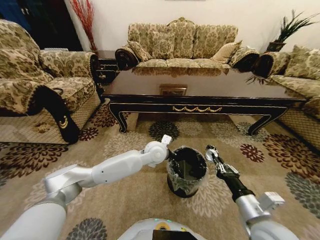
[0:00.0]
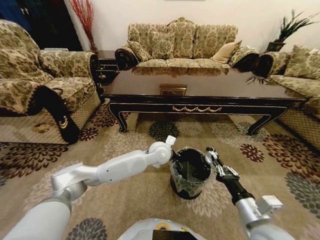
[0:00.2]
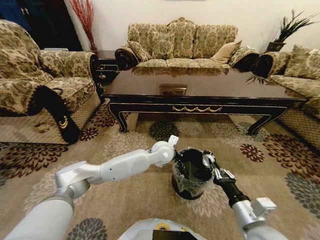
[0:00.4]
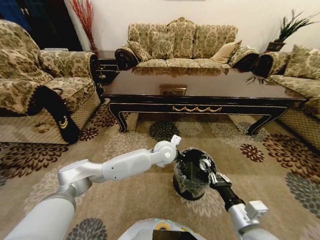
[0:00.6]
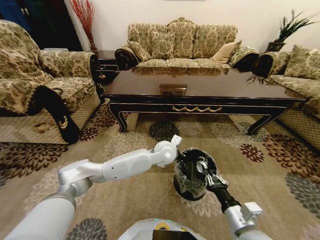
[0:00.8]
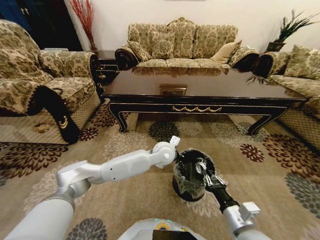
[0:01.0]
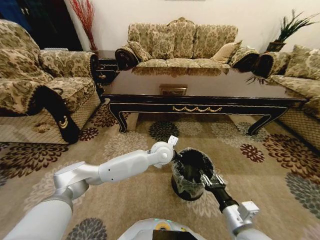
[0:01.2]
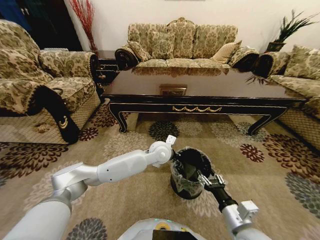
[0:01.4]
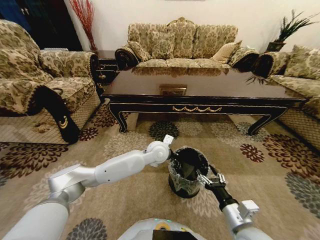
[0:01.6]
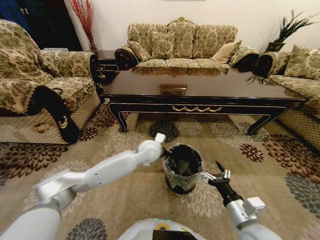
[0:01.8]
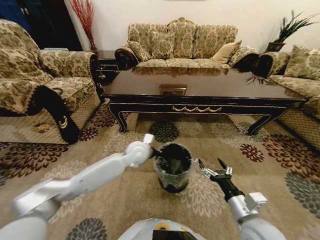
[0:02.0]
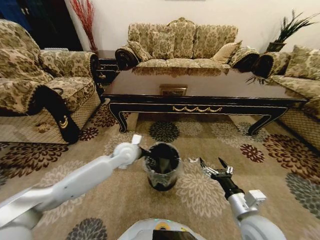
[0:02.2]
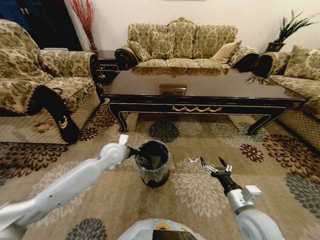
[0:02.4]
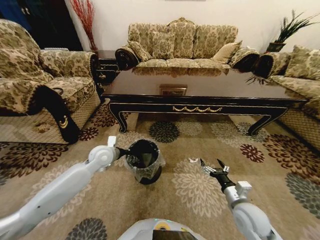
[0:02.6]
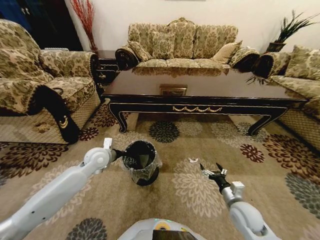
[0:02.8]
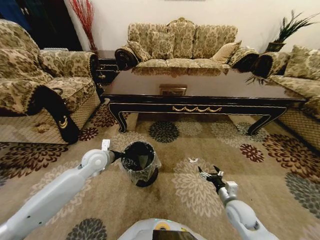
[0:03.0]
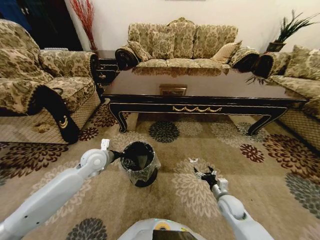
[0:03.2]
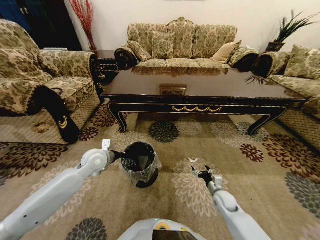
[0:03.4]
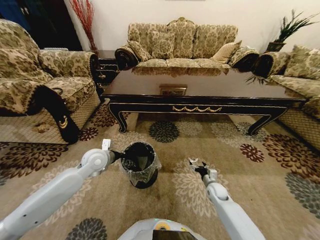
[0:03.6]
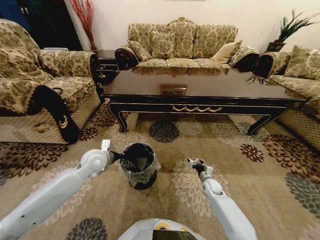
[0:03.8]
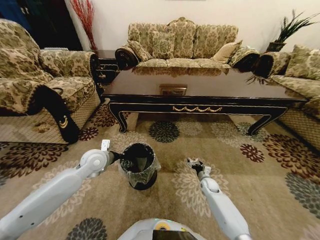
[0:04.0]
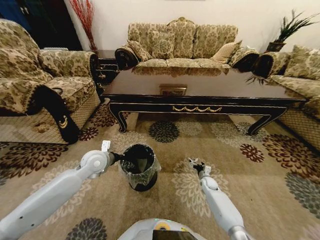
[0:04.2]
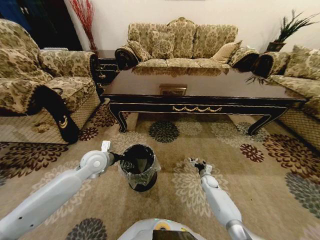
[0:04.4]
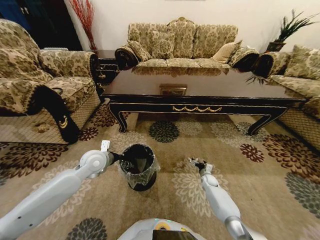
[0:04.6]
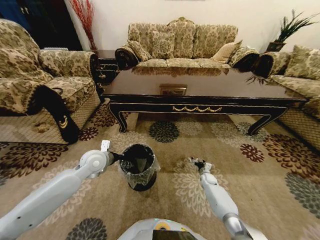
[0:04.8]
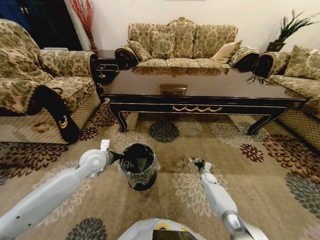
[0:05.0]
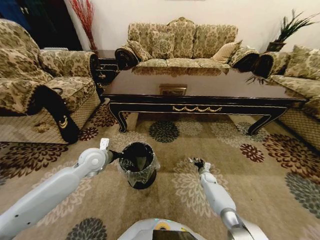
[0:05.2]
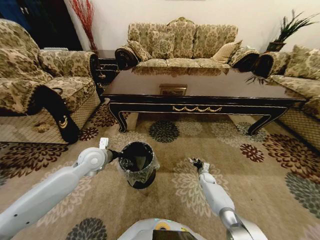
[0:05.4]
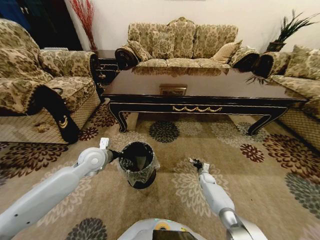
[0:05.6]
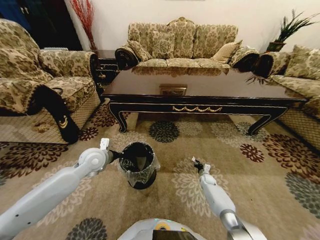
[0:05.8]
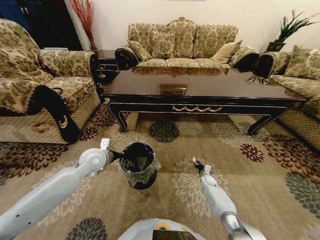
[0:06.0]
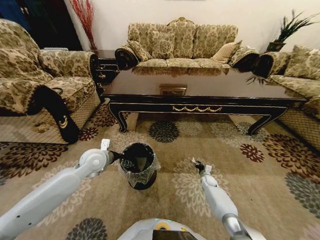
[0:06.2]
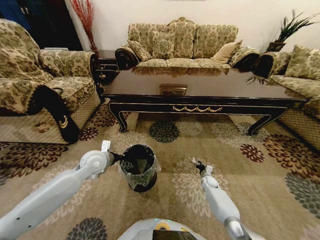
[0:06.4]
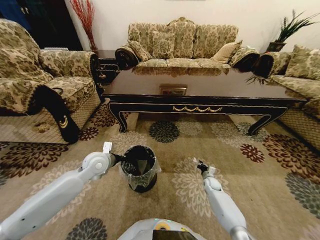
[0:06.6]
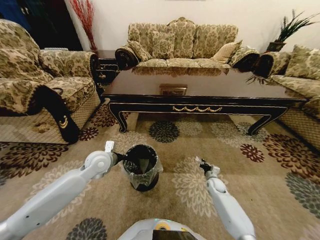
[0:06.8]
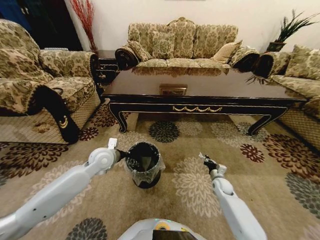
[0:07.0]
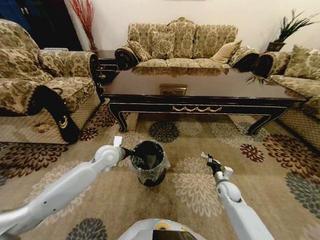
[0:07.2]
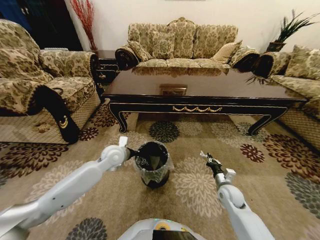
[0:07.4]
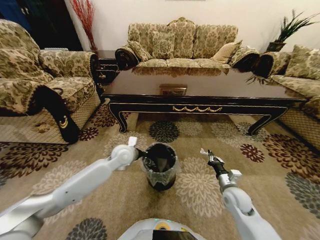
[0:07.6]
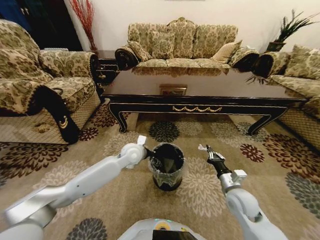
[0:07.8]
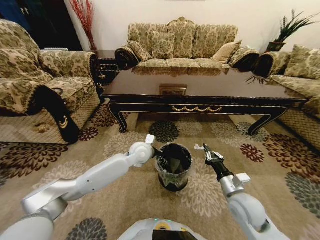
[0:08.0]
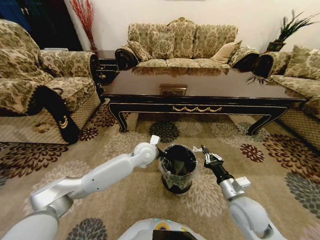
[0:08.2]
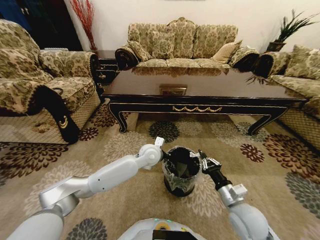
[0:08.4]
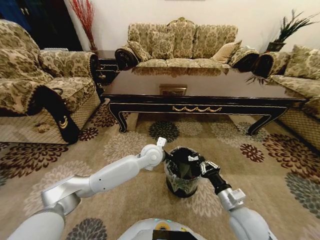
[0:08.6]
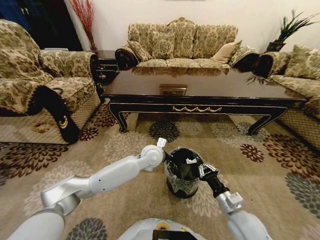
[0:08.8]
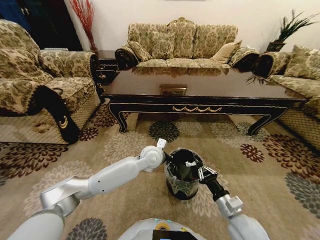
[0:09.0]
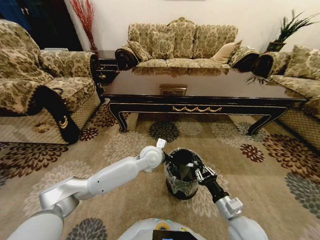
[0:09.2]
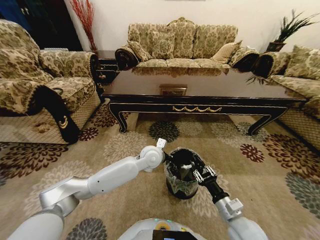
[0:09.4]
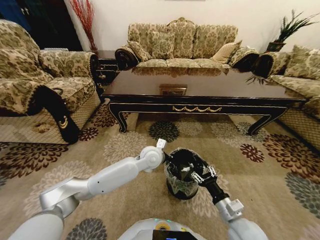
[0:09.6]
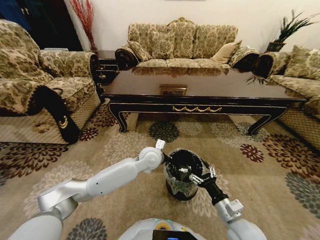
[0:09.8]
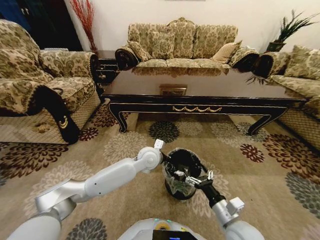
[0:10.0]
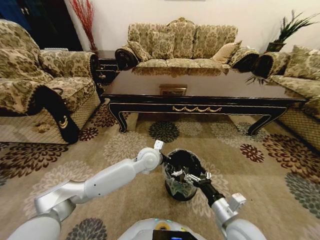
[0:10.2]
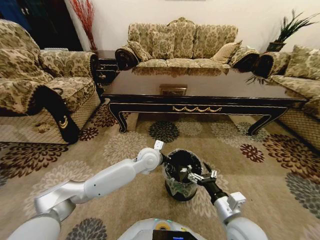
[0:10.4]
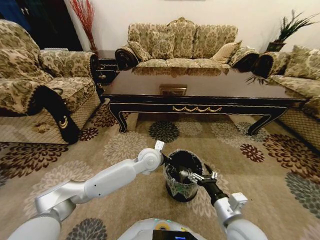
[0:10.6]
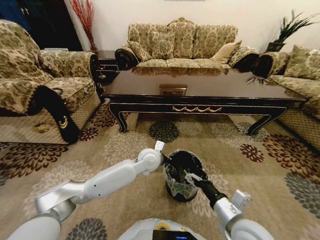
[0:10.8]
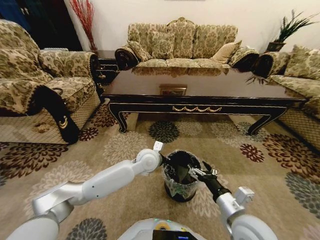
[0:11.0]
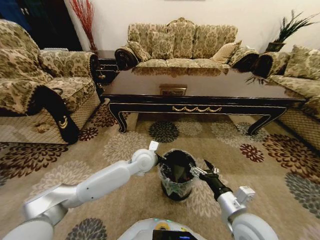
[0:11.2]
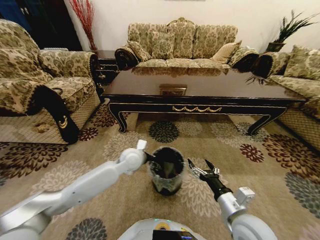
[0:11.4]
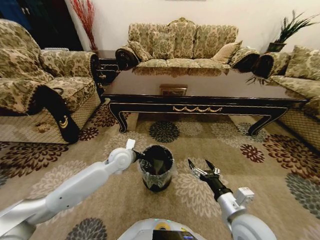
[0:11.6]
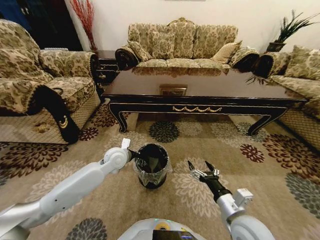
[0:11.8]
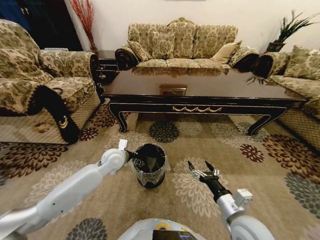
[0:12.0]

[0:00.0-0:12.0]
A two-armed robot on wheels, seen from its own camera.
Task of the whole recording: Move to the front of the table and pick up the trash from the floor, then place it into the trash bin.
0:00.0 to 0:01.6: The right gripper changes place by about 5 cm, and opens up.
0:01.6 to 0:03.0: The left gripper heads to the left, covering approximately 25 cm, while the right gripper travels downward, forward and to the right by some 15 cm.
0:03.0 to 0:04.4: The right gripper moves forward and downward, roughly 25 cm.
0:04.4 to 0:06.0: The right gripper closes its fingers.
0:06.0 to 0:07.6: The left gripper shifts about 10 cm to the right, while the right gripper heads upward and backward, covering about 25 cm.
0:07.6 to 0:09.0: The right gripper shifts roughly 10 cm backward. Meanwhile the left gripper moves to the right, roughly 15 cm.
0:09.0 to 0:10.4: The right gripper opens up.
0:10.4 to 0:12.0: The left gripper travels to the left by about 15 cm.

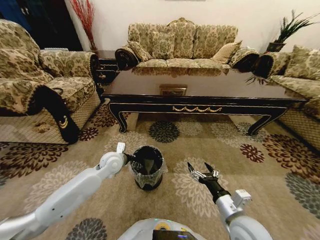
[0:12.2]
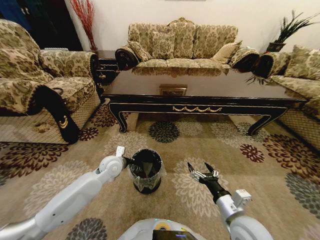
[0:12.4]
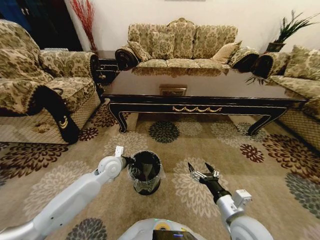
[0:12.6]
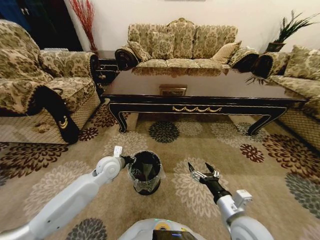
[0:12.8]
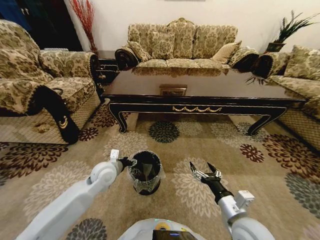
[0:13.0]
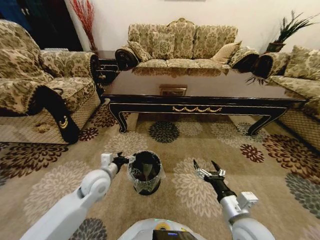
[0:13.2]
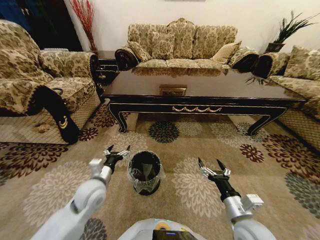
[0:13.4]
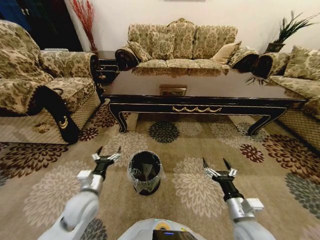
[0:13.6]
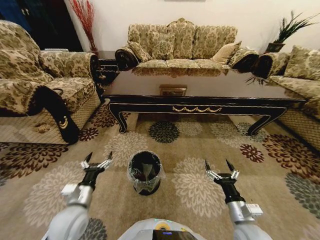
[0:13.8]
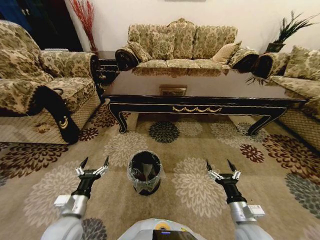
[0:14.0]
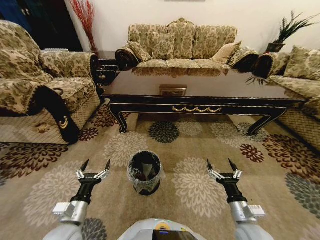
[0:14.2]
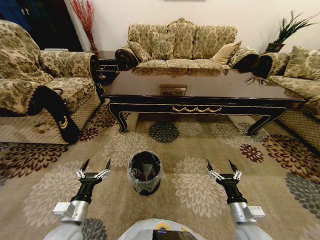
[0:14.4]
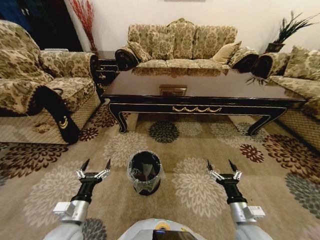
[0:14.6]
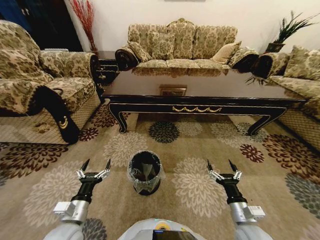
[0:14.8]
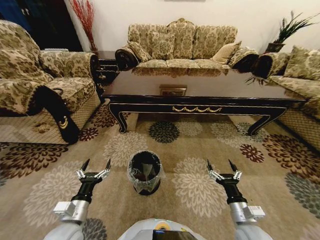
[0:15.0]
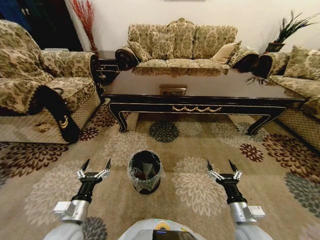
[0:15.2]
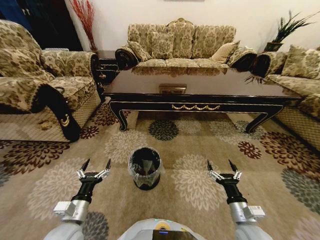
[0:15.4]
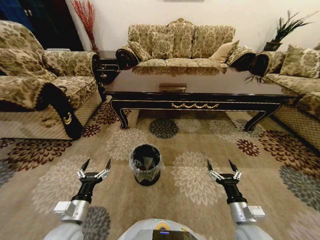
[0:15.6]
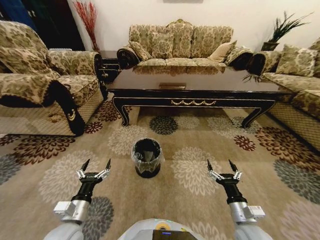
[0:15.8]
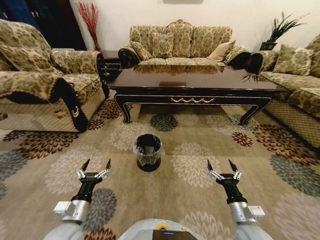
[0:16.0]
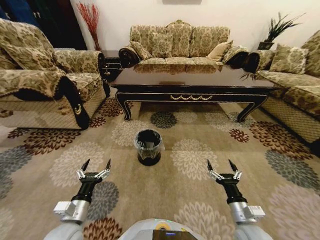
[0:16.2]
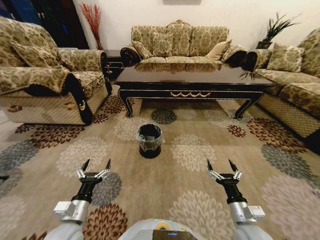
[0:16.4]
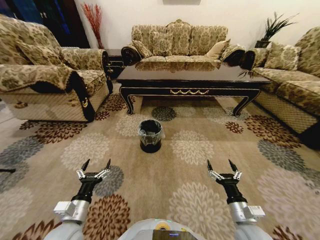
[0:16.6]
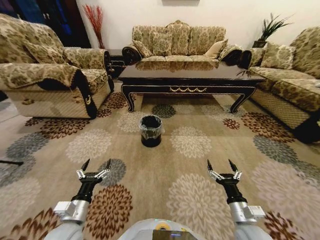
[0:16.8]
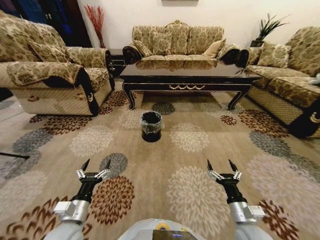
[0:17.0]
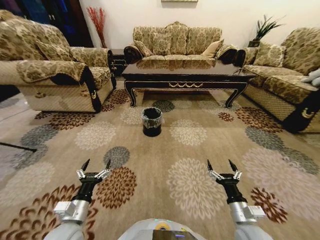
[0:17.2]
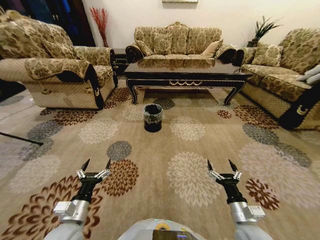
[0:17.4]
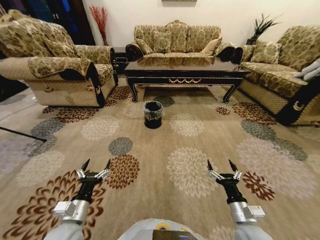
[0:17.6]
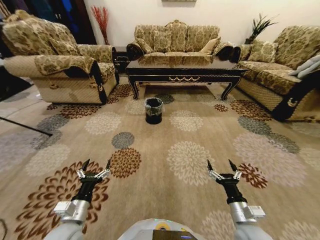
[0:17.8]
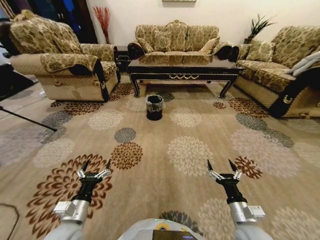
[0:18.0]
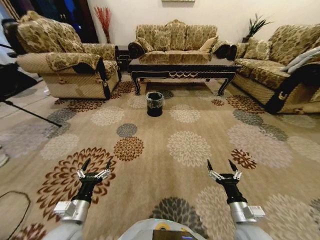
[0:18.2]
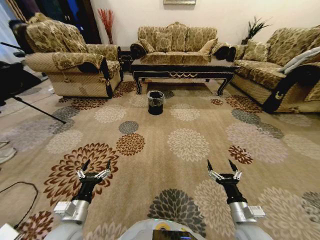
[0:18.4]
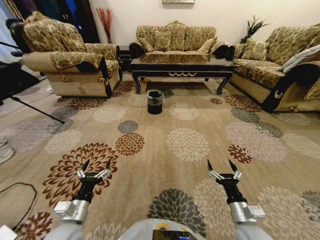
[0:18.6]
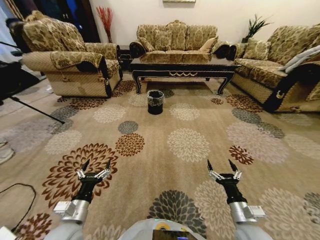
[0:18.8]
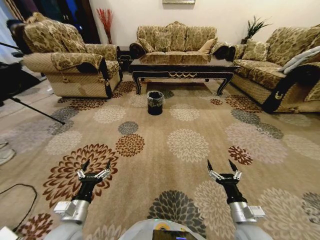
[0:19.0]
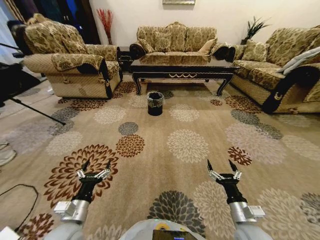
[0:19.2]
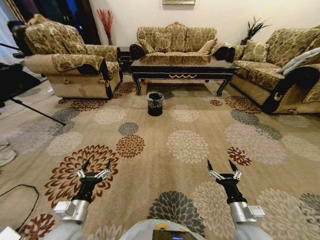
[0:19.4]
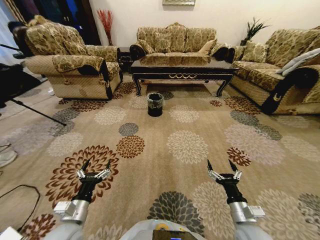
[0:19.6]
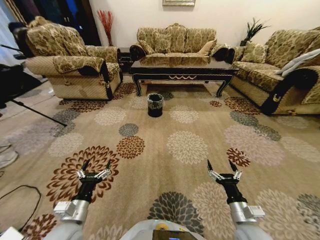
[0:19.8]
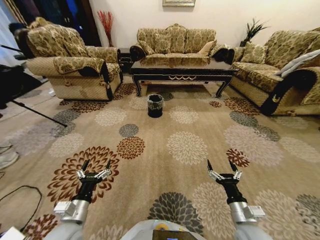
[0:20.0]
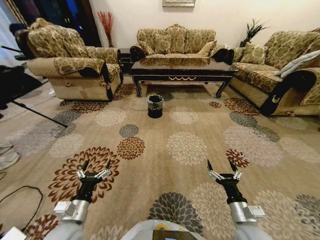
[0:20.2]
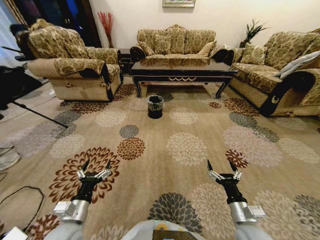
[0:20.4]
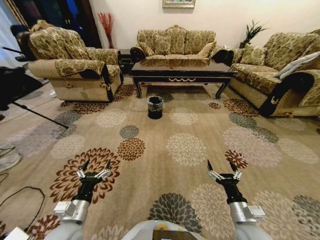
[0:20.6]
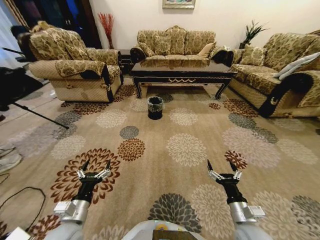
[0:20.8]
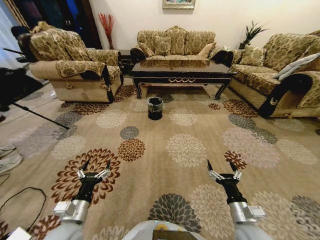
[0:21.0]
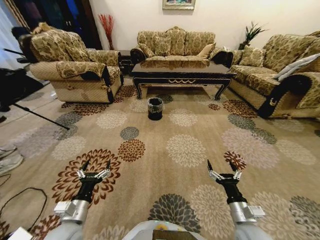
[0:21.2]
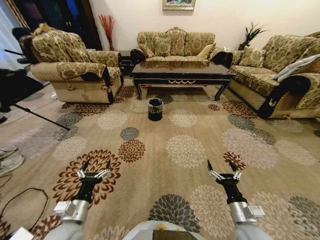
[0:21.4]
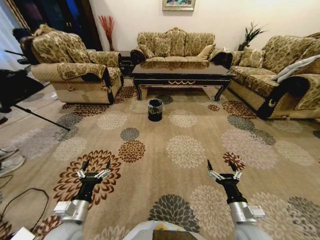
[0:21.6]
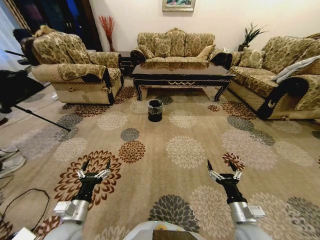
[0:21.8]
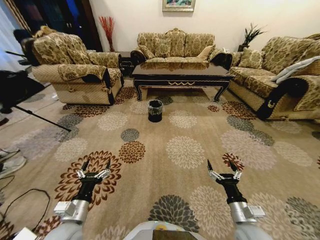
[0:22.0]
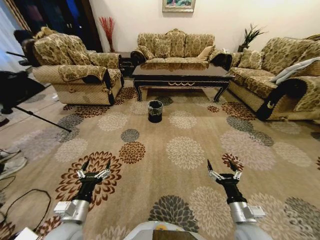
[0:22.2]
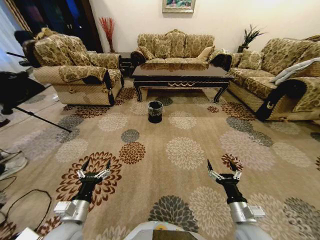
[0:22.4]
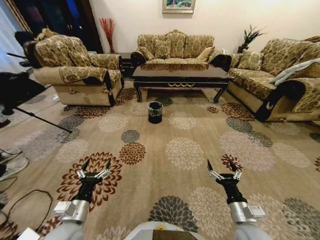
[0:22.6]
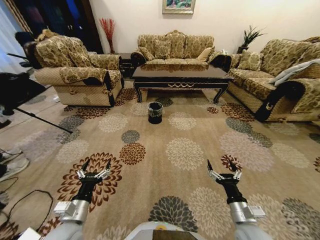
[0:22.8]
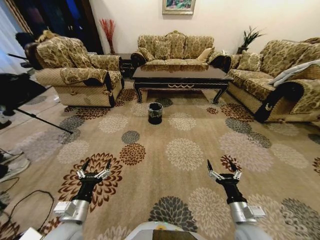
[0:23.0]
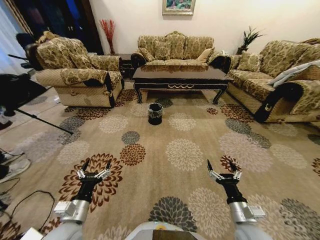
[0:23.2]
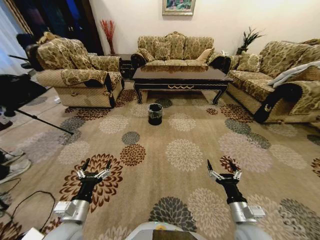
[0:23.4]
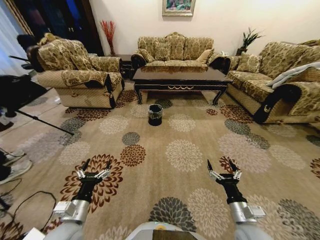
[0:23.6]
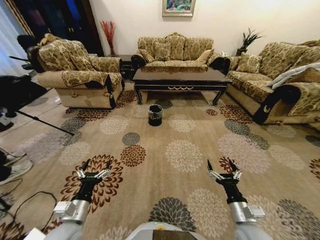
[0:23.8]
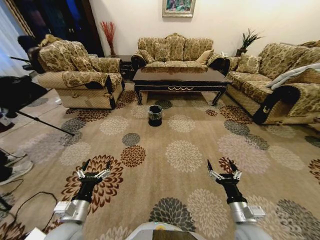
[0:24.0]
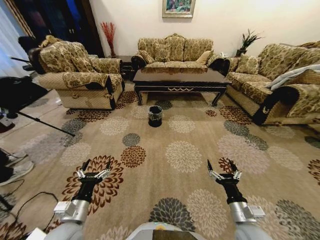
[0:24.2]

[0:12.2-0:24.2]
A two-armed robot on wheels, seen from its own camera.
Task of the whole recording: Move to the front of the table and pick up the trash from the floor, then place it into the trash bin.
0:12.2 to 0:13.8: The left gripper travels backward by about 20 cm, and opens; the right gripper moves downward, about 5 cm.
0:13.8 to 0:15.2: There are only small adjustments of the grippers.
